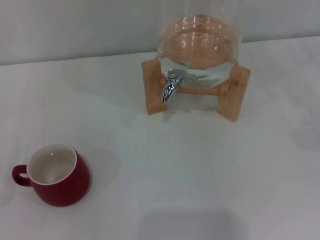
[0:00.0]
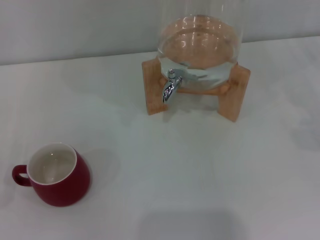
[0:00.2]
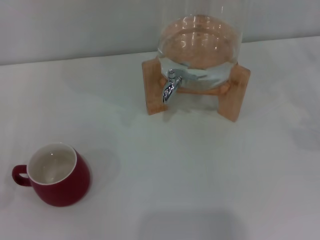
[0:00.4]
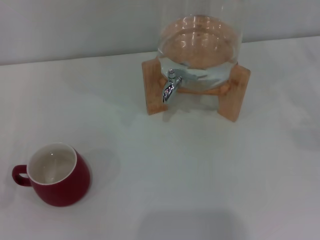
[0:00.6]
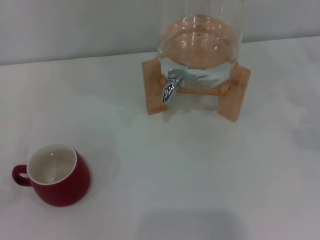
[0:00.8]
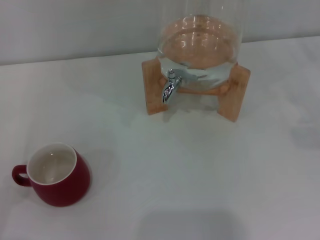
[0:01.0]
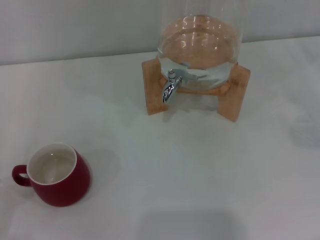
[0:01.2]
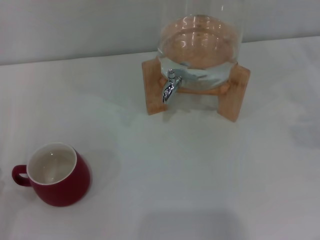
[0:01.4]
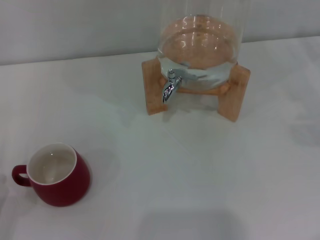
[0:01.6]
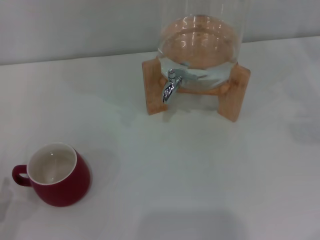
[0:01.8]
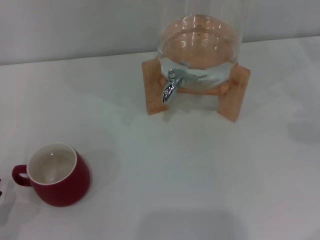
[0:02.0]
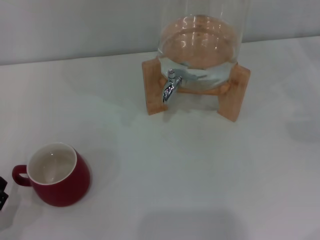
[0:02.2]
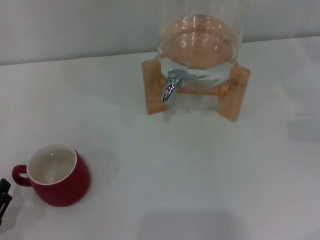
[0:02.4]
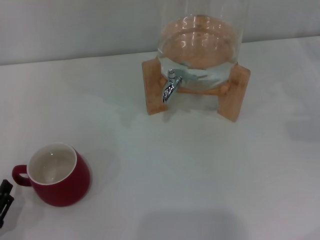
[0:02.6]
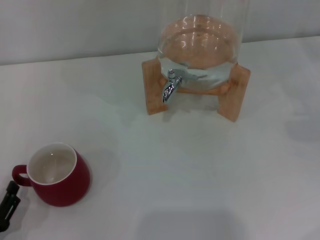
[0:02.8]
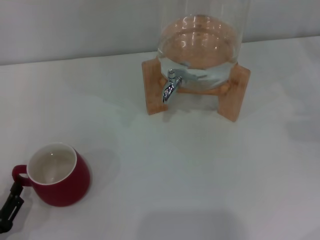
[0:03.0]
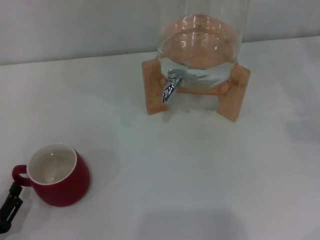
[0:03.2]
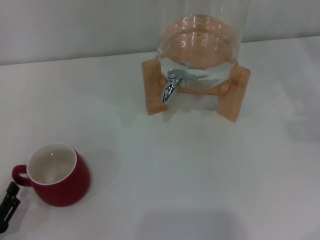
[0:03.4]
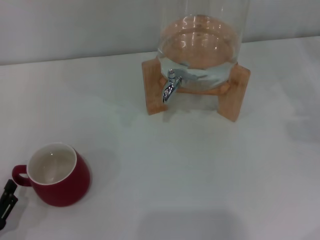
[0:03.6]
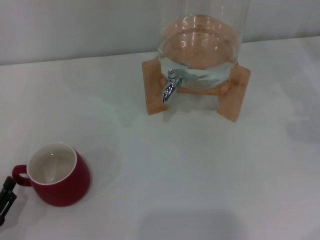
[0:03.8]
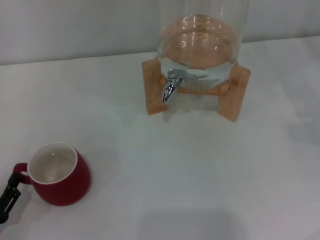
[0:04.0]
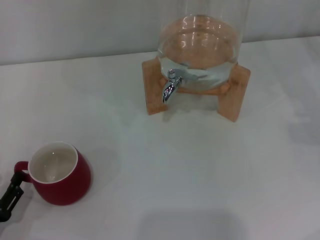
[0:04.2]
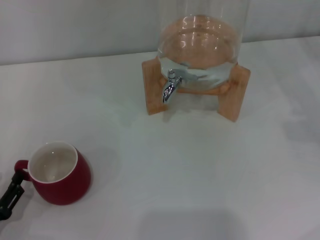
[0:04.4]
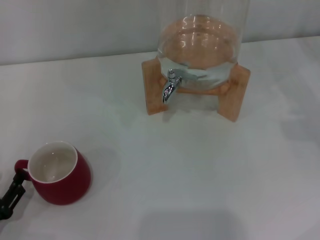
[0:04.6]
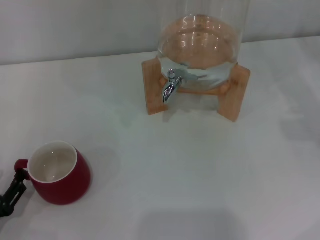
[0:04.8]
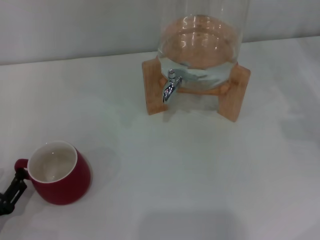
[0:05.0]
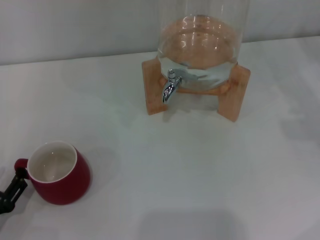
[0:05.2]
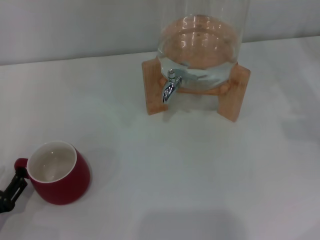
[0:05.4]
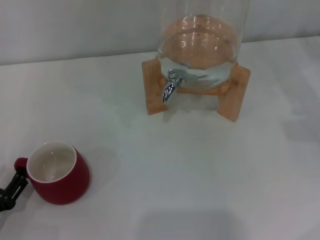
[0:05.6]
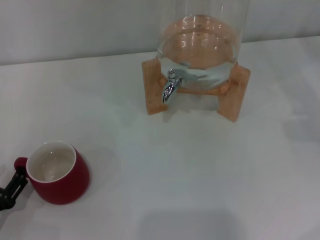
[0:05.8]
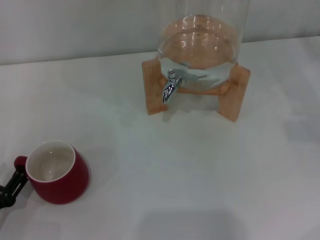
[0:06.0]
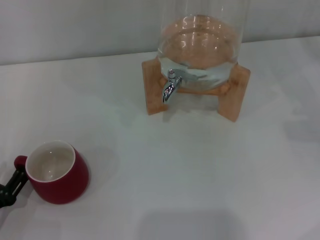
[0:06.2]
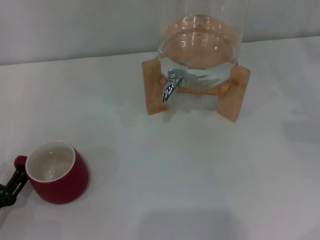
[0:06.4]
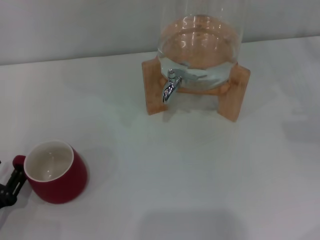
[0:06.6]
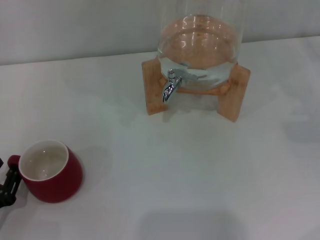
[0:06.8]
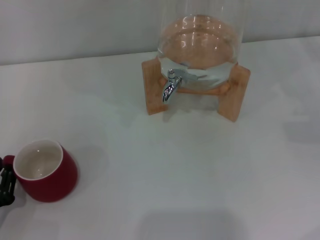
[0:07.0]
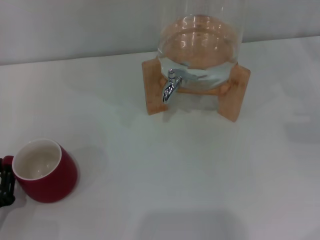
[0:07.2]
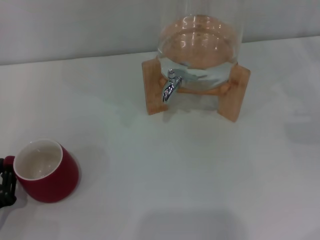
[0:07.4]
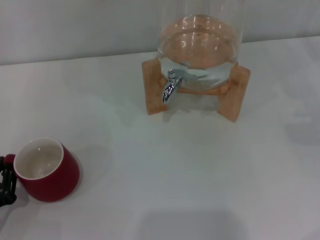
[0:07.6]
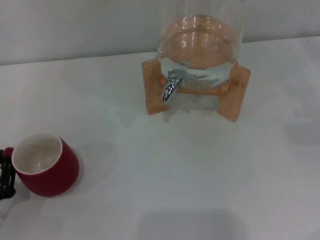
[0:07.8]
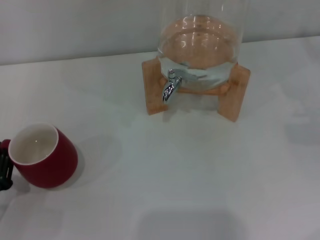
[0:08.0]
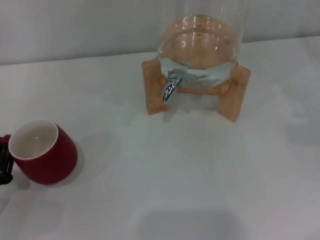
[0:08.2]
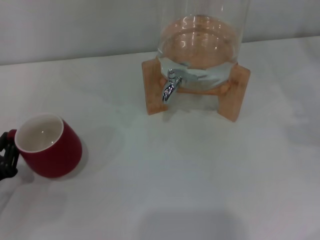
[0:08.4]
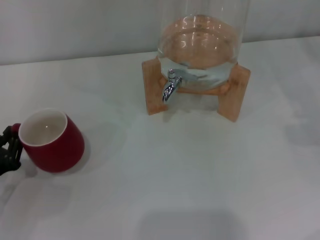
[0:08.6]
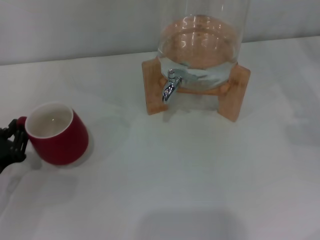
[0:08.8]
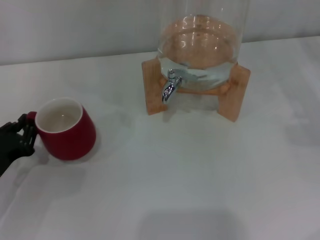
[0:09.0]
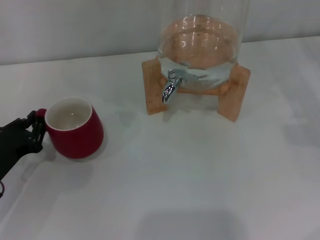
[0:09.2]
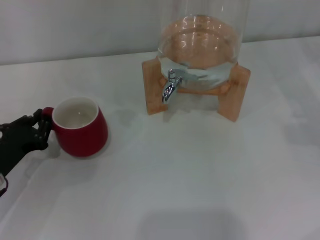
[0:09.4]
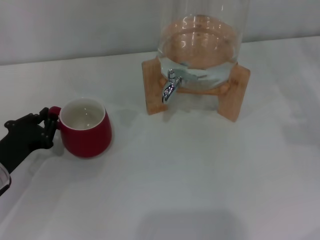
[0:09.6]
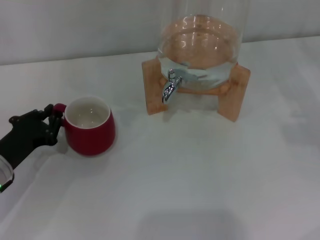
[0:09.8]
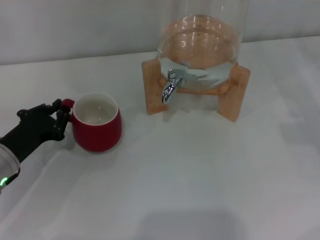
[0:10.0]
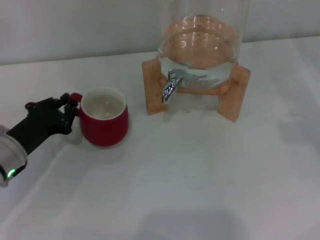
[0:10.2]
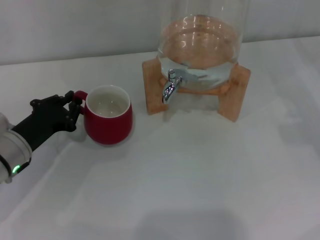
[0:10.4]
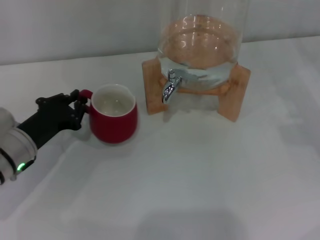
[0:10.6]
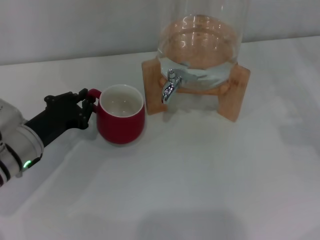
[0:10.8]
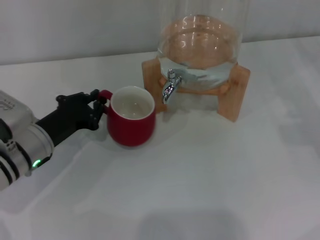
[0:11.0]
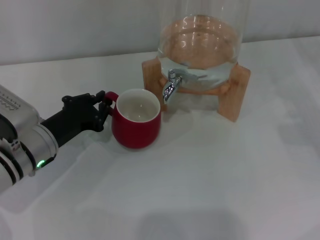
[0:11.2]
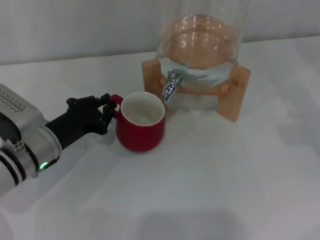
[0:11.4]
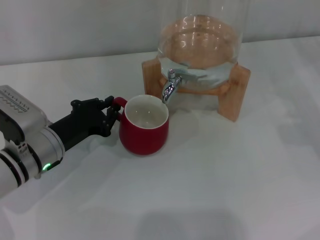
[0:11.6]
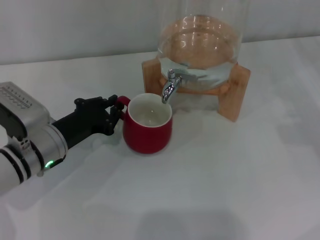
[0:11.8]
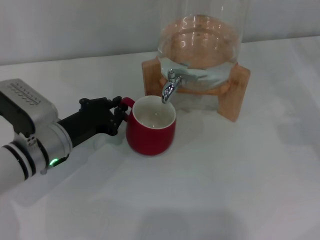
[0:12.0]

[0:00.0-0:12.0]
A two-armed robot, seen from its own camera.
Task of the whole recording: the left gripper pick up the red cup and place it horizontally under the faucet, the right gripper turn on the faucet to fill the cup, and then turn off the faucet.
0:01.6 to 0:06.0: The grippers move only a little.
0:06.0 to 0:07.6: The left gripper closes.
0:07.6 to 0:09.0: The left gripper heads forward, covering approximately 10 cm.
0:09.0 to 0:10.4: The left gripper goes approximately 10 cm to the right and forward.
0:10.4 to 0:12.0: The left gripper moves to the right, some 5 cm.

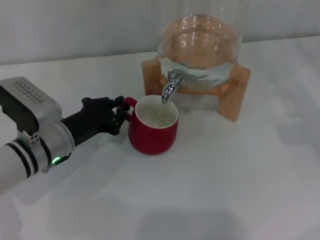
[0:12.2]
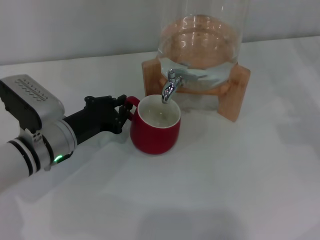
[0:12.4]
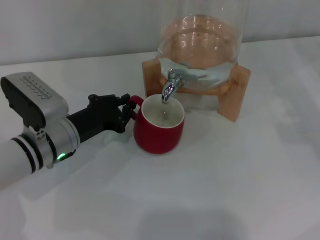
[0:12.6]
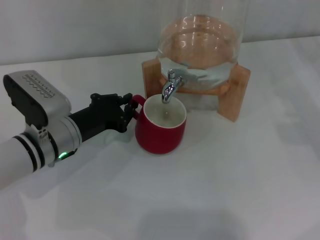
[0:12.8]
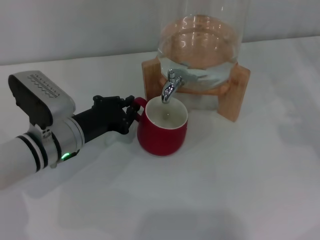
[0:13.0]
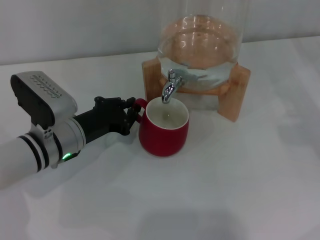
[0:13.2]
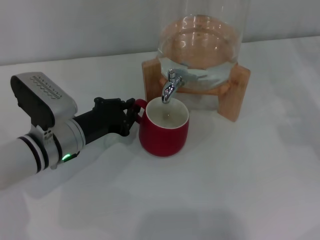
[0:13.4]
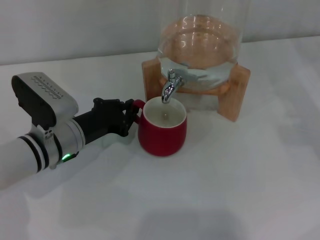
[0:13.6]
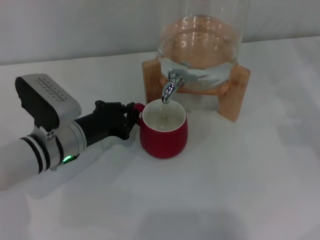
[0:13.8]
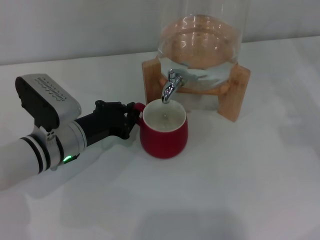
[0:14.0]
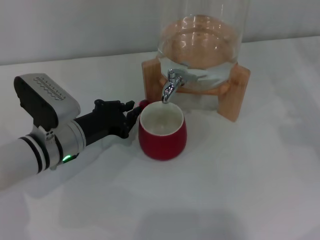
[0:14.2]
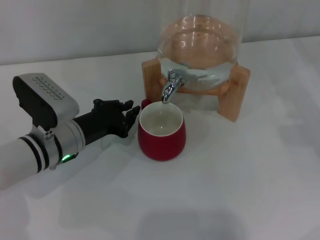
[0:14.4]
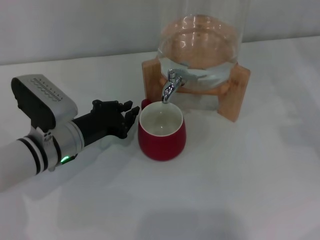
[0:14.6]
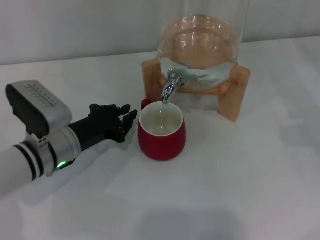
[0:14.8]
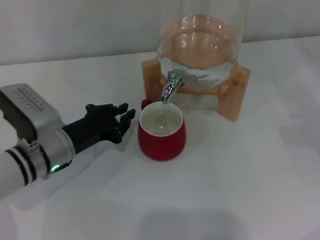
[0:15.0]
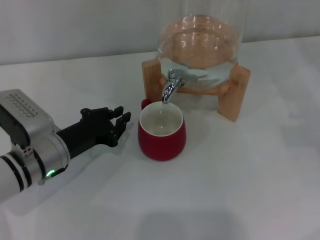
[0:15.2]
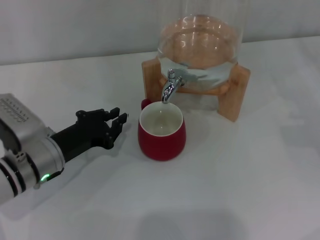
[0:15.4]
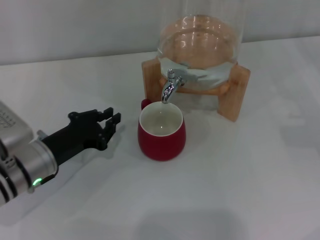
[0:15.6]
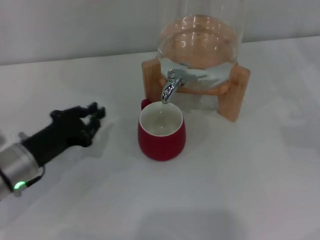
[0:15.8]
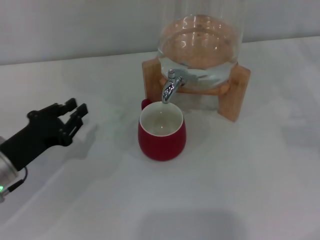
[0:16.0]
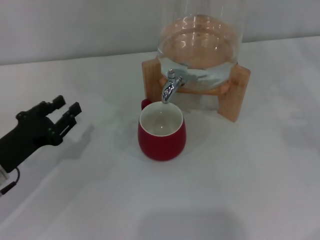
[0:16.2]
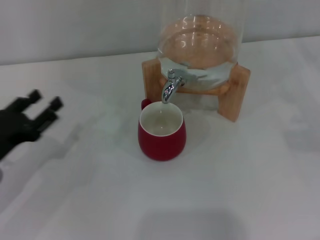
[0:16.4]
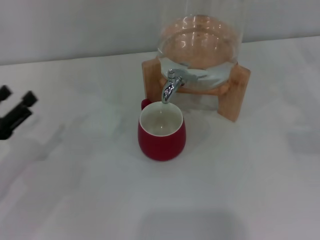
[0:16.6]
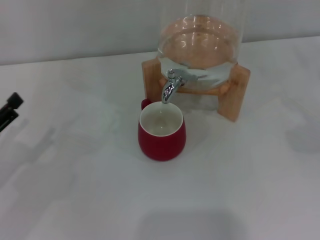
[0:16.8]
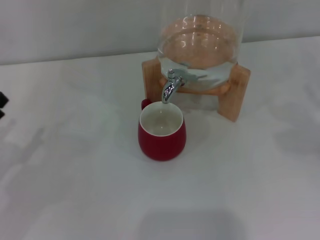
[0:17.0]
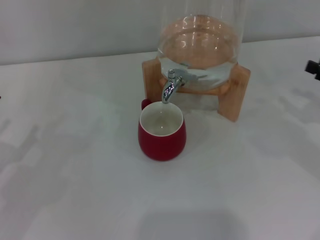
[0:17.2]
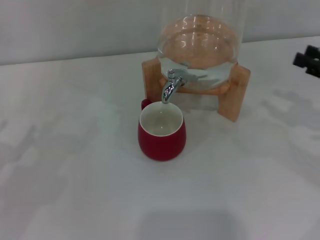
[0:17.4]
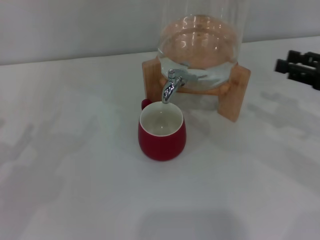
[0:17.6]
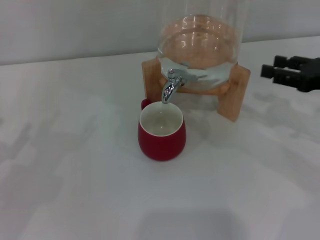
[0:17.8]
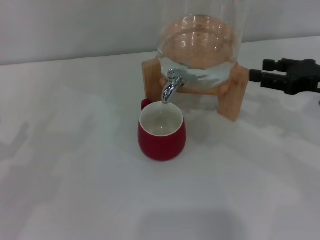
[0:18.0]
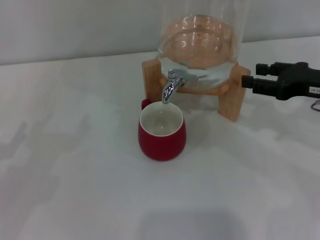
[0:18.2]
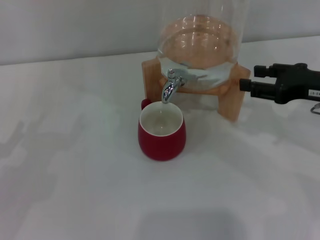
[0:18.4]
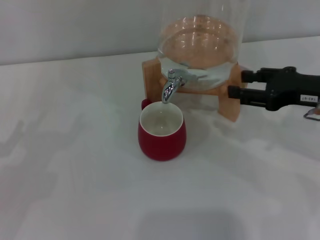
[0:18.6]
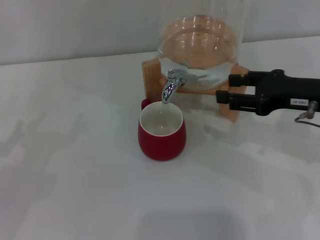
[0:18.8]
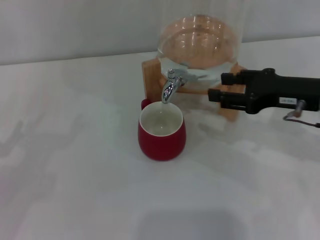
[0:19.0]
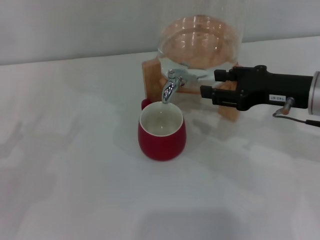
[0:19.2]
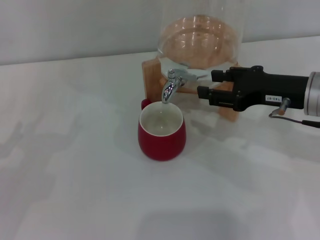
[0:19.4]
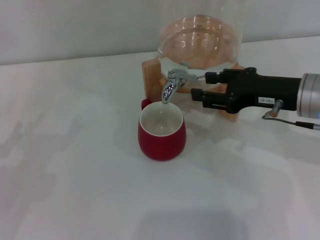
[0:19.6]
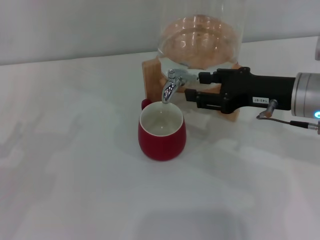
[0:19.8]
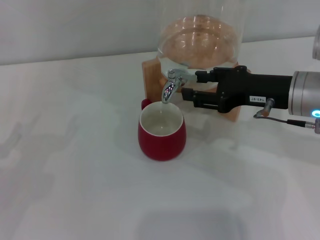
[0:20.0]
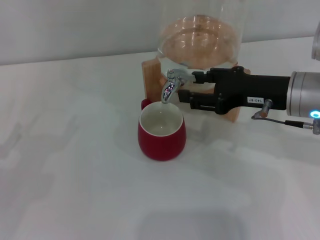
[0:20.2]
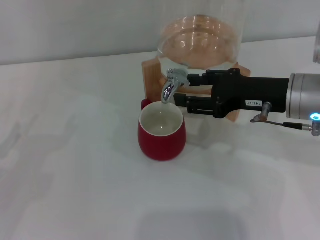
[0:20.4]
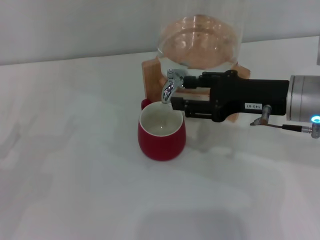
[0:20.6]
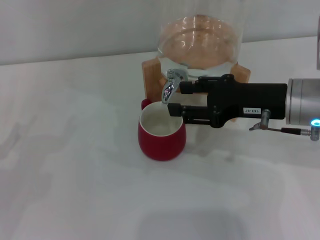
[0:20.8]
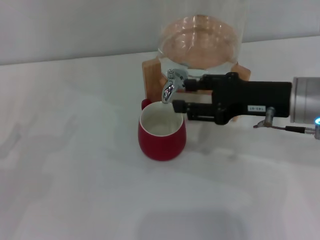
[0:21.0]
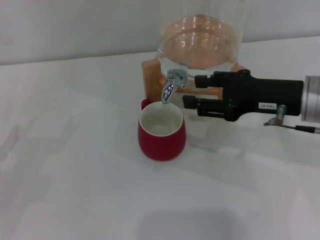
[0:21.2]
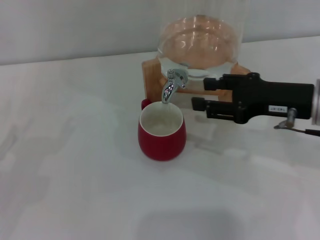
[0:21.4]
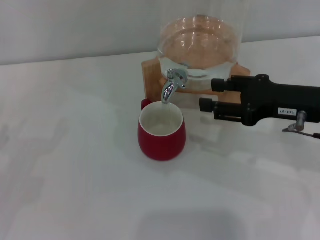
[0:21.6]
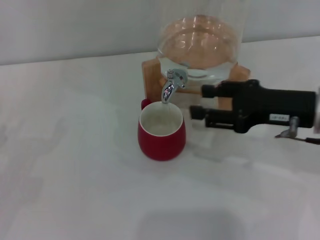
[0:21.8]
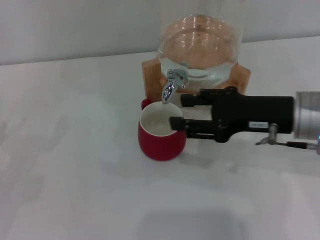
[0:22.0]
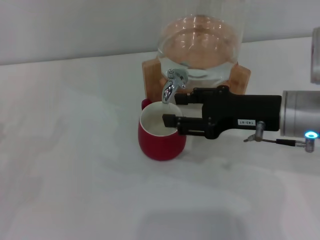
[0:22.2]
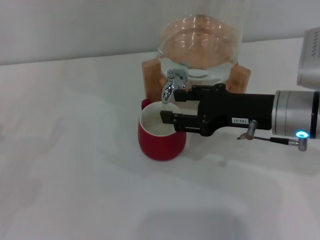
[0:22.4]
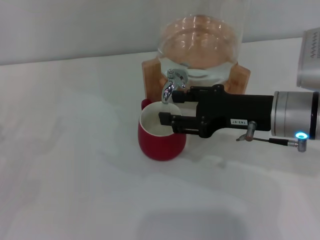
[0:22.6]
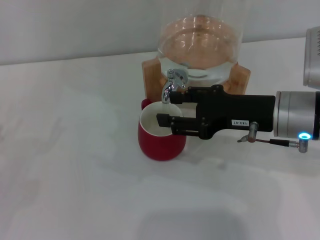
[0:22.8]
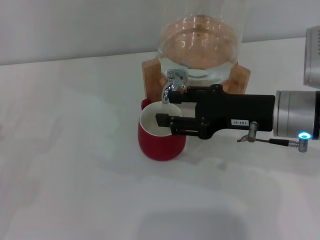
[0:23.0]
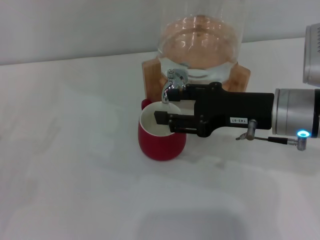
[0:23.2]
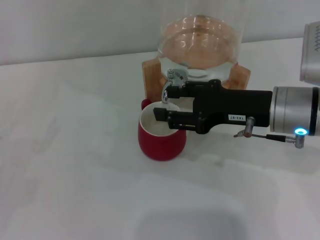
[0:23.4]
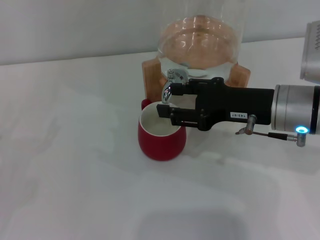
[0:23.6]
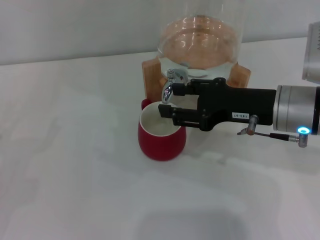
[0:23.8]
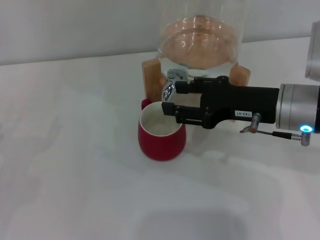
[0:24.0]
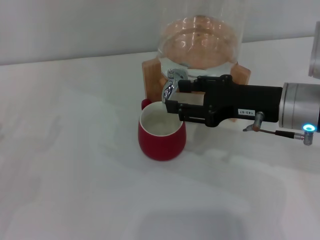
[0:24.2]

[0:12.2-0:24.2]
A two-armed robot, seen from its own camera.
Task of the whole recording: the left gripper pick up the red cup and place it horizontally under the faucet, the right gripper turn on the faucet to fill the cup, and then turn off the faucet.
Step, 0:12.2 to 0:15.2: Move the cup beneath the water dispenser nozzle with the left gripper.
Step, 0:15.4 to 0:23.2: Open the dispenser valve and fill the cup with water with the right gripper.
0:12.2 to 0:15.2: The grippers make only small movements.
0:15.2 to 0:16.6: The left gripper is displaced to the left and backward by some 15 cm, and opens its fingers.
0:16.6 to 0:18.2: The left gripper opens up, while the right gripper shifts approximately 15 cm to the left and upward.
0:18.2 to 0:19.8: The right gripper moves to the left, approximately 10 cm.
0:19.8 to 0:22.6: There are only small adjustments of the grippers.
0:22.6 to 0:24.2: The two grippers keep their place.
